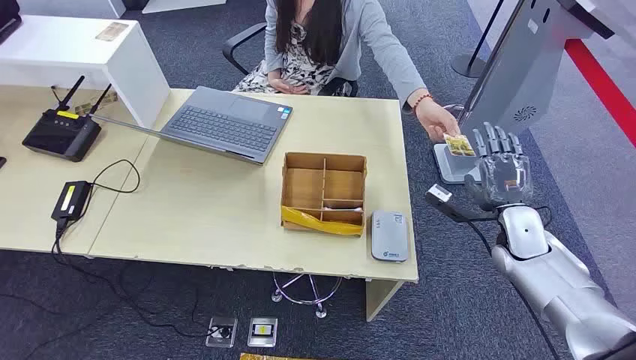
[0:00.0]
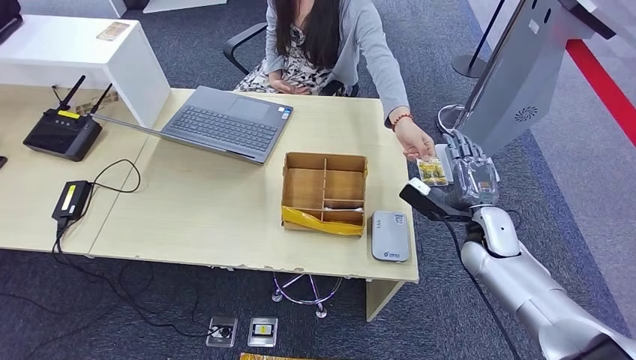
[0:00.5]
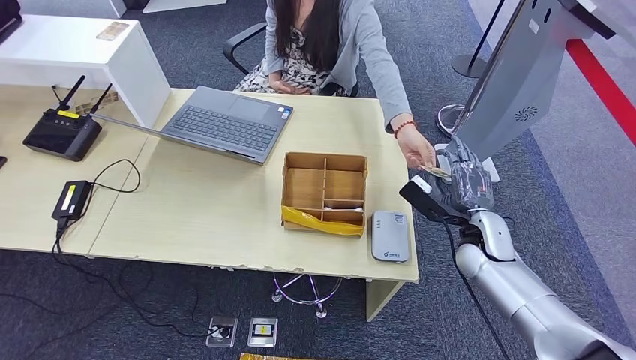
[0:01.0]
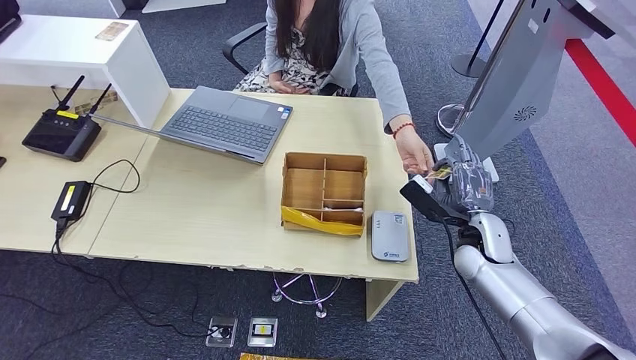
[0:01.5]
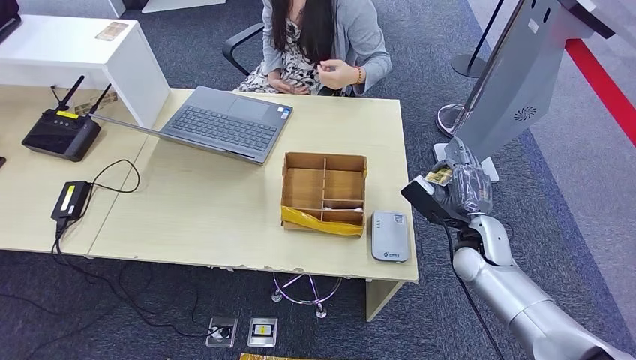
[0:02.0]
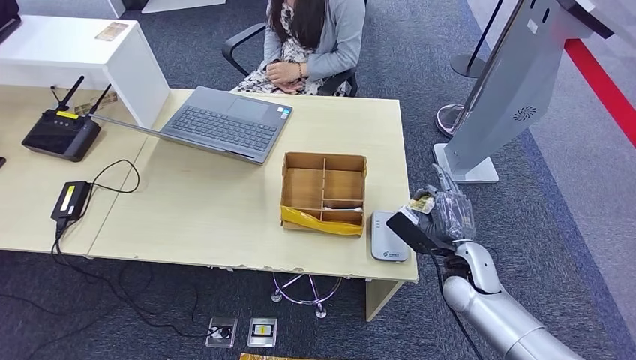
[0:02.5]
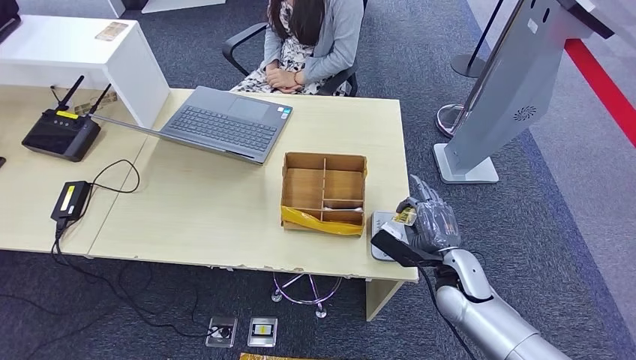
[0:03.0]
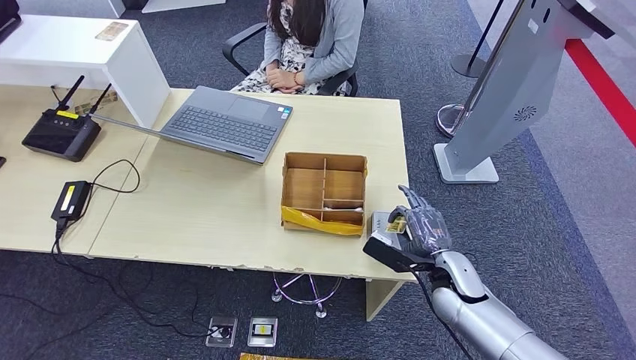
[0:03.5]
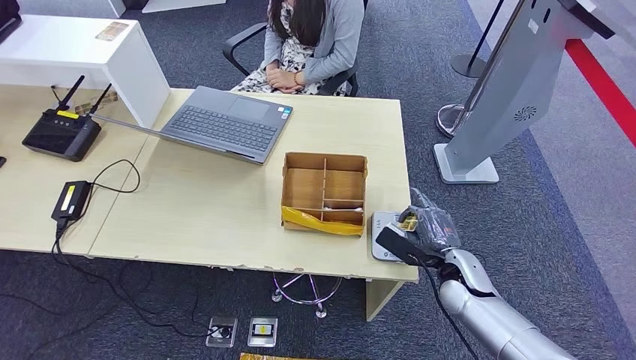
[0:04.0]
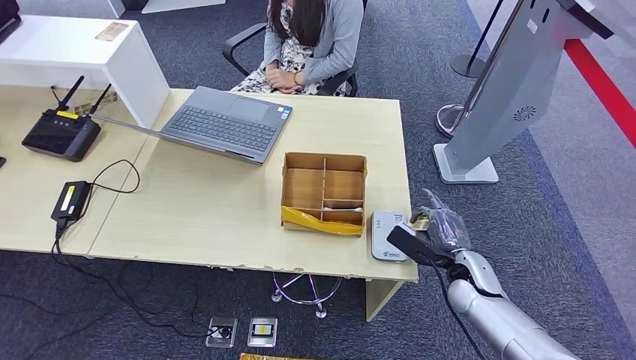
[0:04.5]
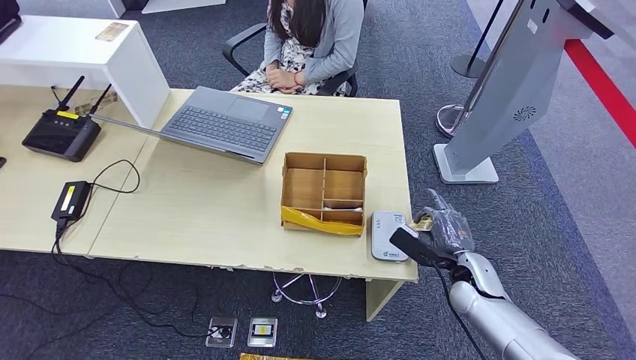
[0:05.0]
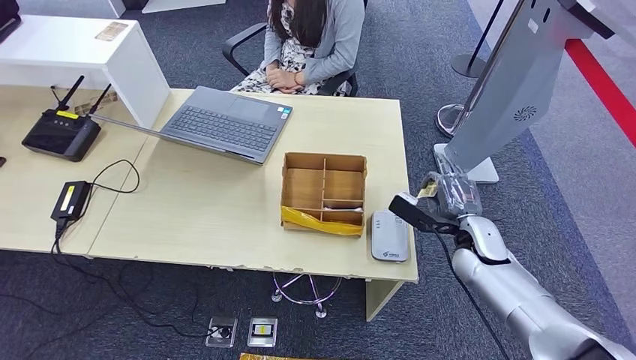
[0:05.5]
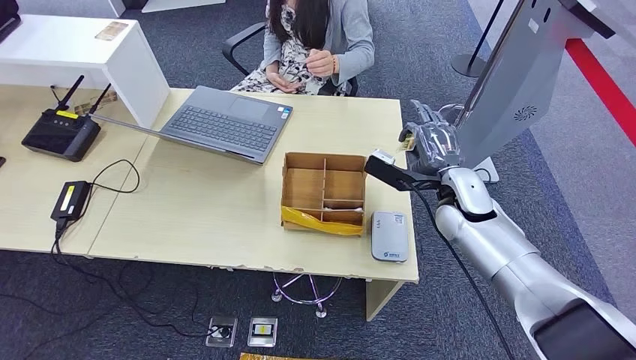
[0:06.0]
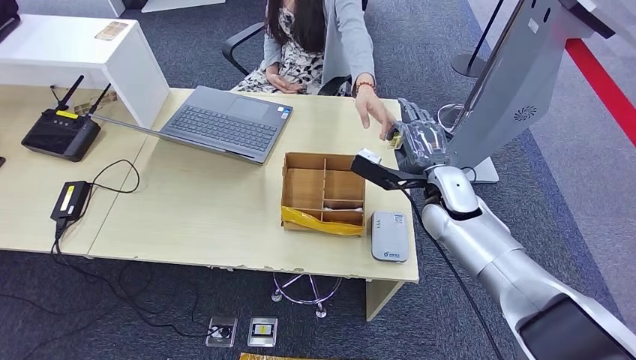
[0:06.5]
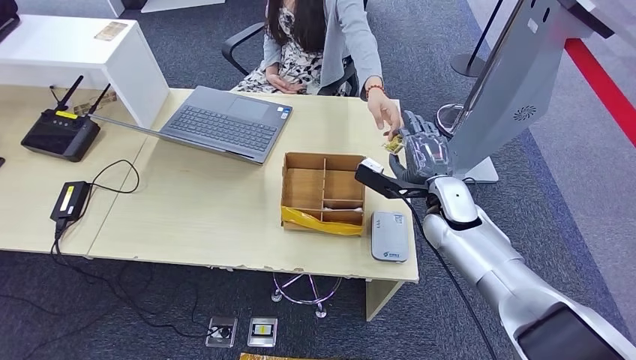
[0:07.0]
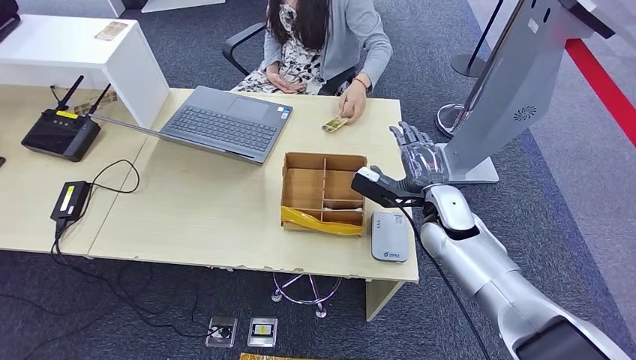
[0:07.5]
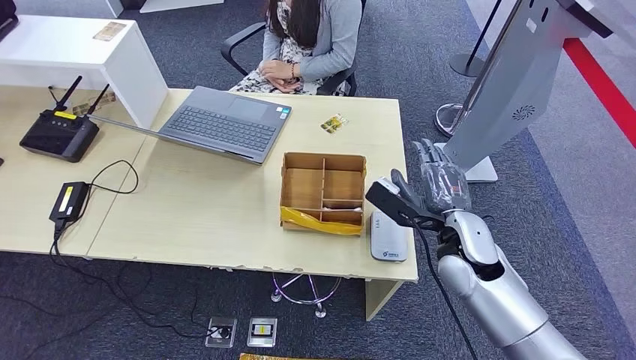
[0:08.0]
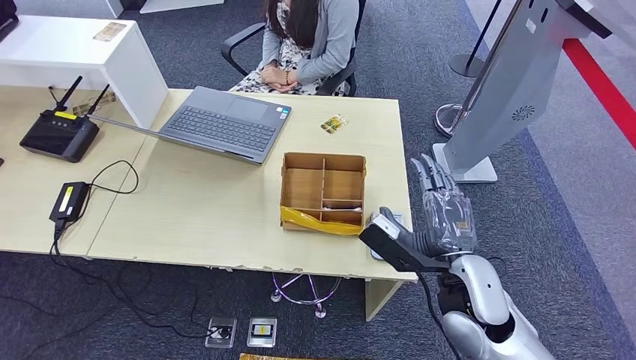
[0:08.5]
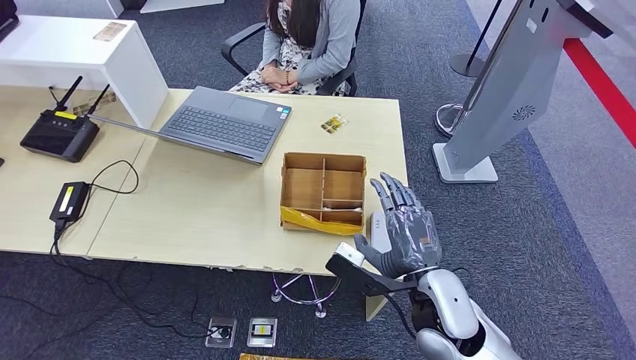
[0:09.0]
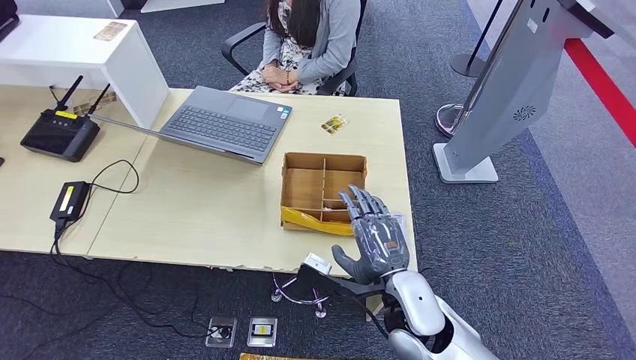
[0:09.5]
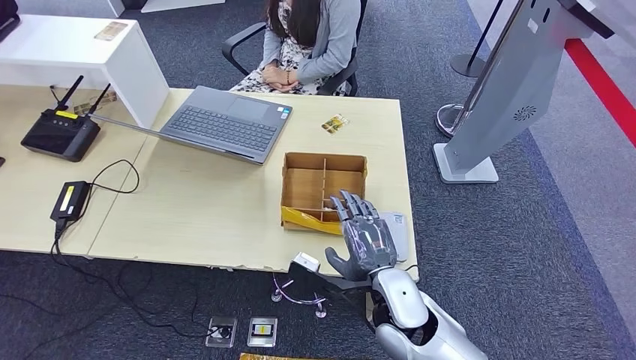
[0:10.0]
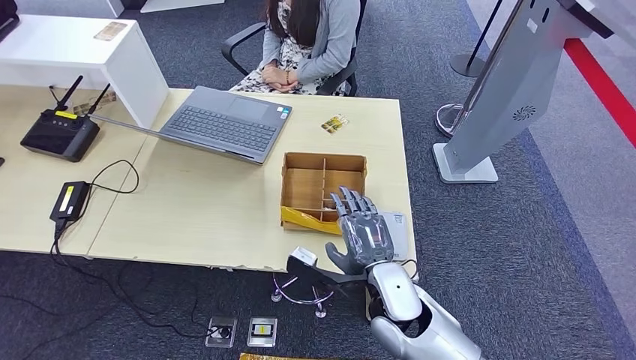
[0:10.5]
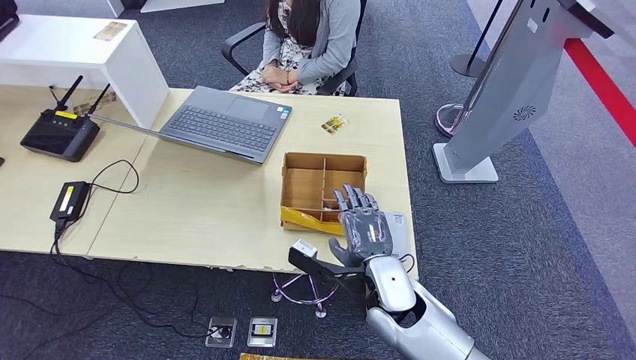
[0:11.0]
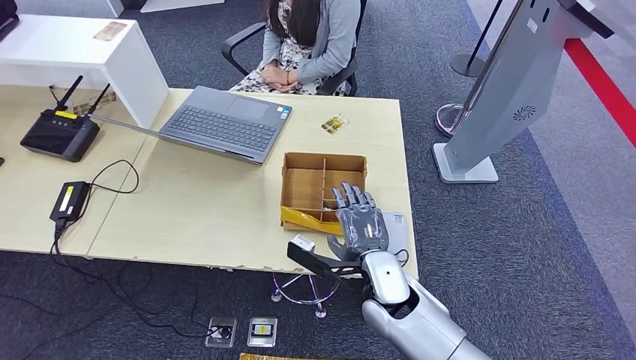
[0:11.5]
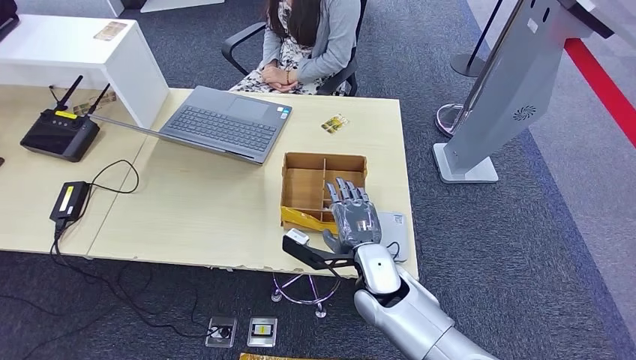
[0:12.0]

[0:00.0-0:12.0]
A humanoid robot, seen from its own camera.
Step, 0:00.0 to 0:02.5: Take the ID card from the person's hand.
Step, 0:03.0 to 0:06.0: Place the ID card on the card reader.
Step, 0:06.5 to 0:10.5: Hand the ID card to the person.
0:02.0 to 0:04.0: The right hand goes approximately 5 cm downward.
0:04.0 to 0:06.0: The right hand travels upward and forward by some 15 cm.
0:06.0 to 0:08.0: The right hand heads backward, covering roughly 10 cm.
0:08.0 to 0:10.0: The right hand is displaced to the left and backward by roughly 15 cm.
0:10.0 to 0:12.0: The right hand is displaced forward by some 5 cm.

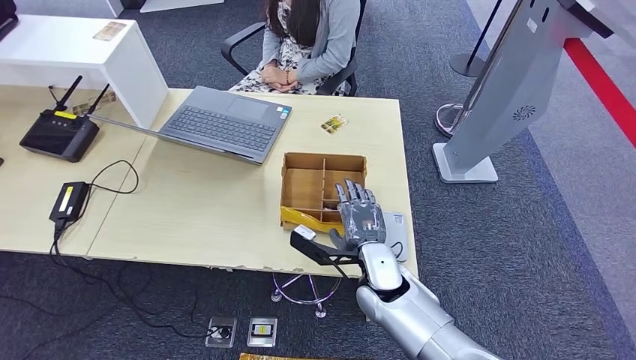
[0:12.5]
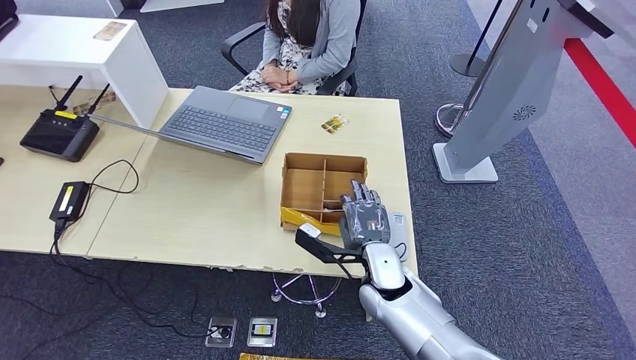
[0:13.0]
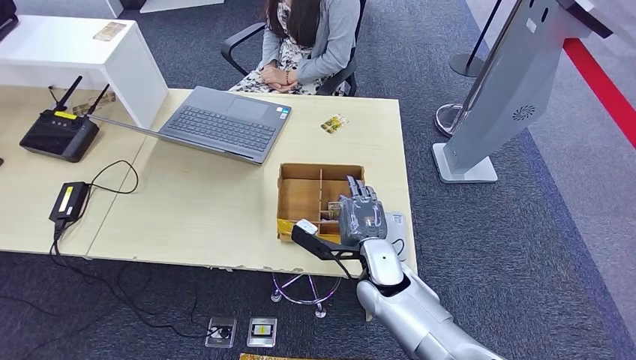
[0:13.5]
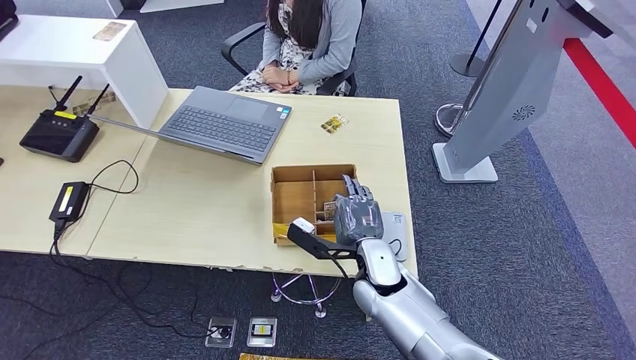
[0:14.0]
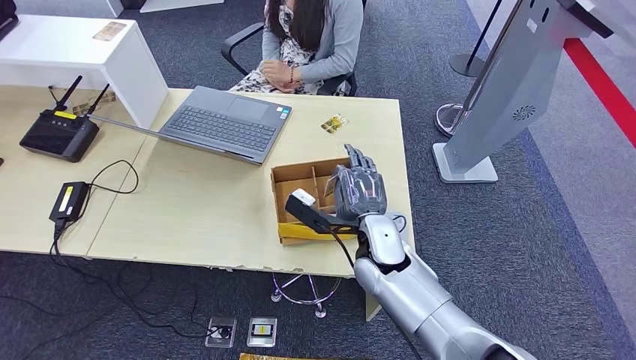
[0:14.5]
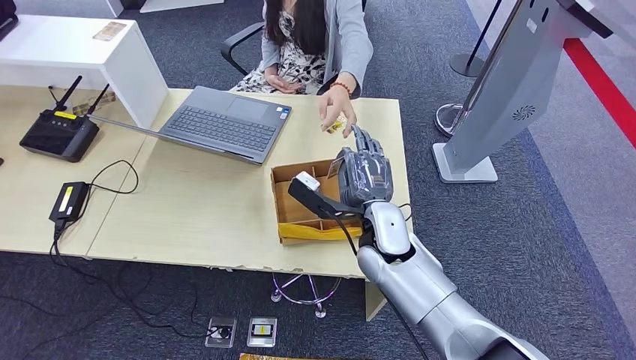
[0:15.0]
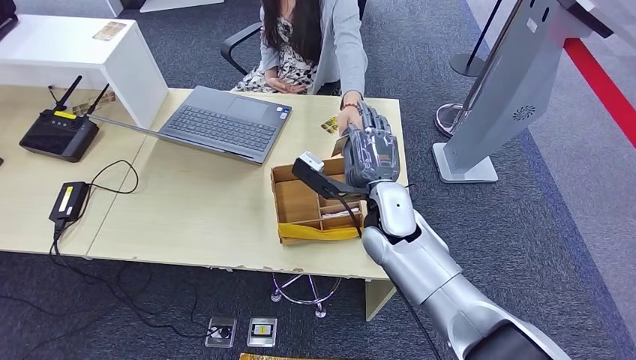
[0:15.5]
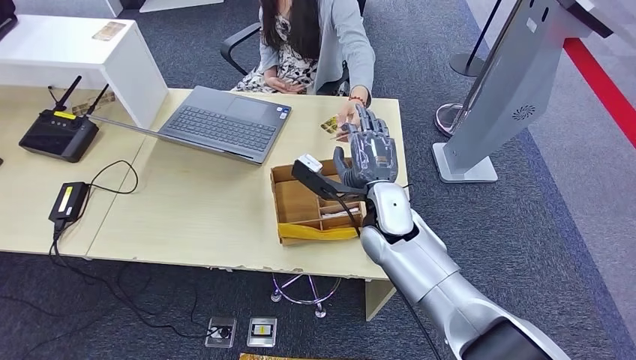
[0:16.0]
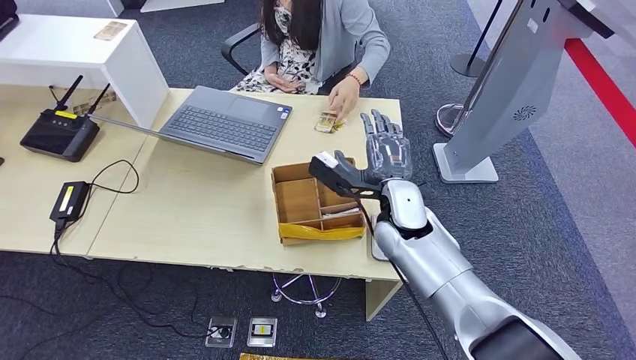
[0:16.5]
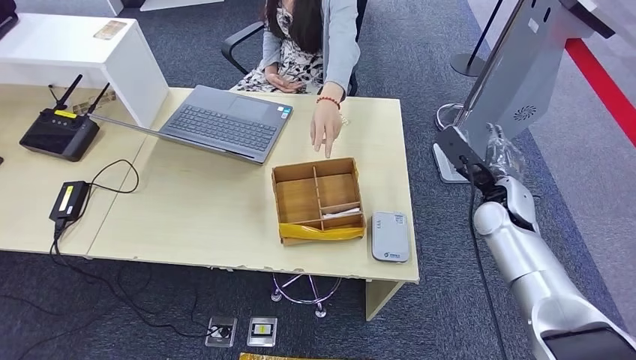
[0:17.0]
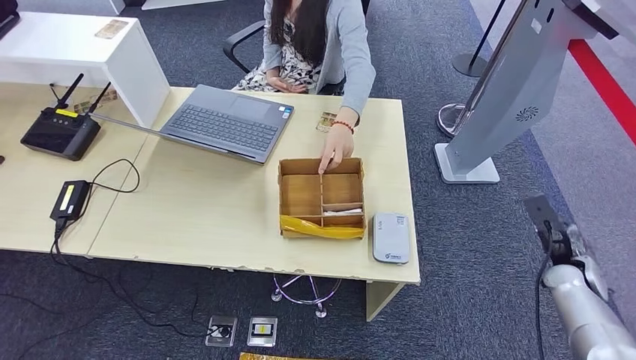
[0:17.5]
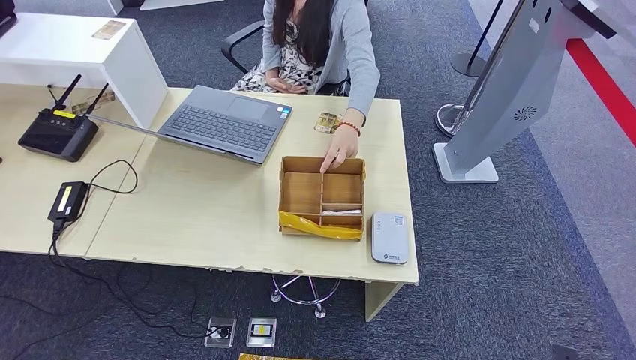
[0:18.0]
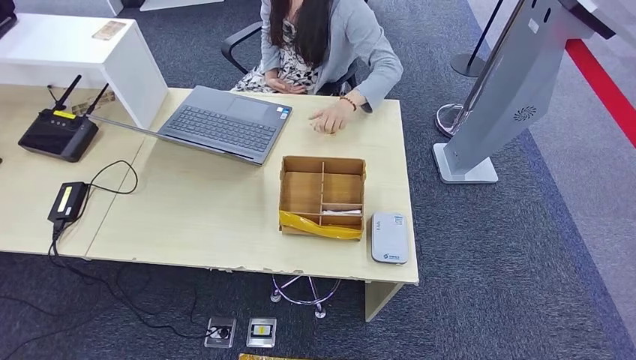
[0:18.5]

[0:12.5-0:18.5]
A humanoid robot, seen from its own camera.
Step, 0:12.5 to 0:15.0: Pick up the room key from the key card box.
Step, 0:15.5 to 0:18.5: Hand the room key to the person.
0:12.5 to 0:14.5: The right hand ends up about 5 cm from where it was.
0:14.5 to 0:16.5: The right hand ends up approximately 5 cm from where it was.
0:16.5 to 0:18.5: The right hand shifts roughly 50 cm backward, downward and to the right.

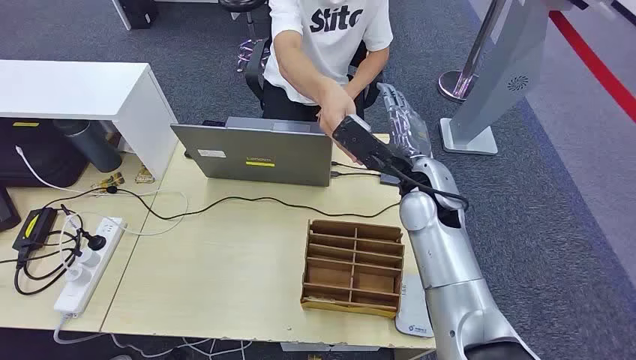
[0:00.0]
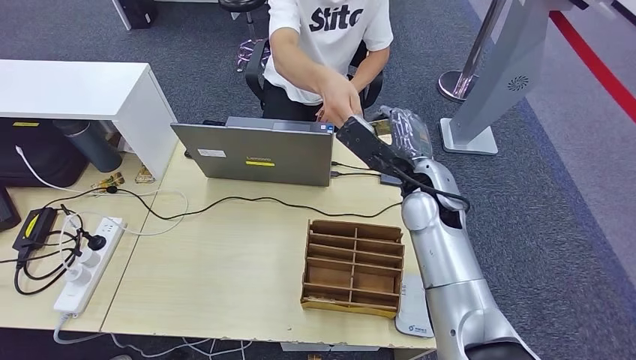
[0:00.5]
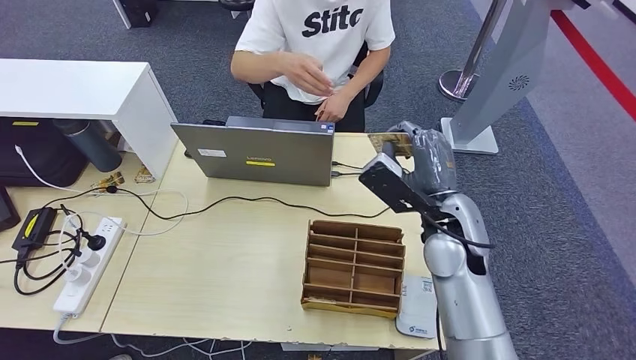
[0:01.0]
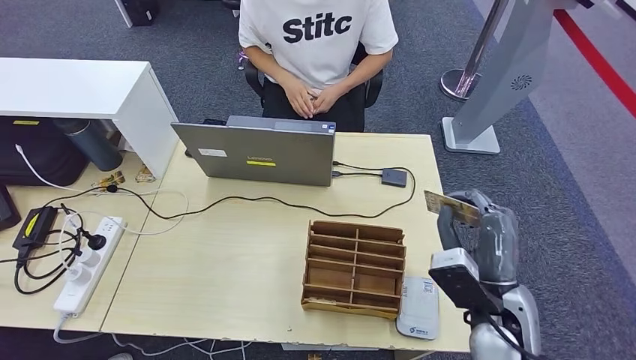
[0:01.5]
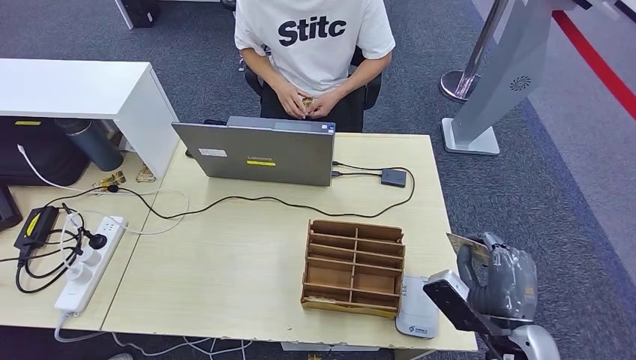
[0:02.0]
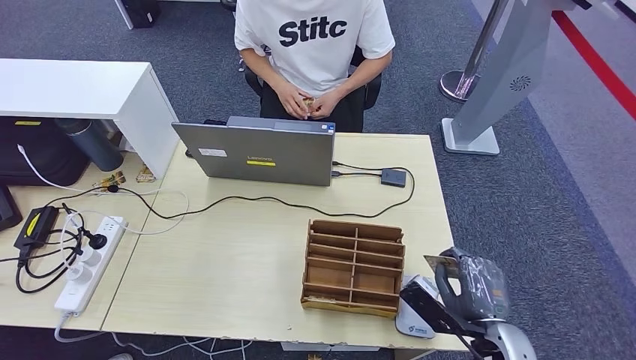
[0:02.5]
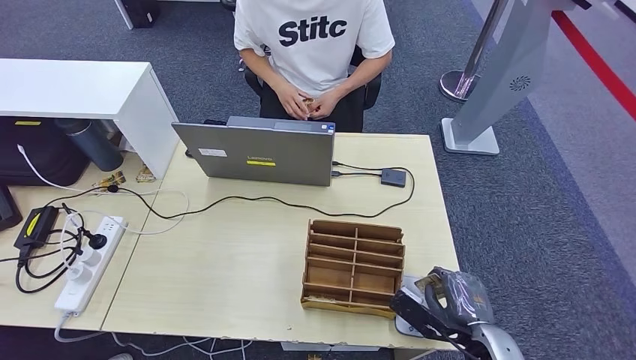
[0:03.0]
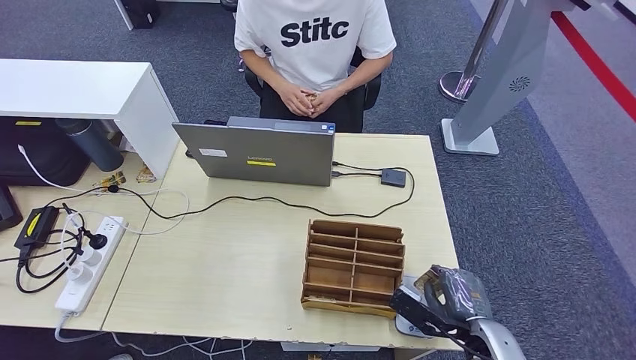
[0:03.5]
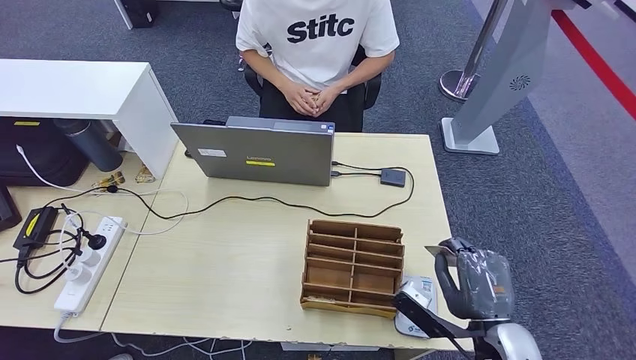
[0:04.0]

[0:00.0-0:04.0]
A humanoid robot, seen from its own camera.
Step, 0:00.0 to 0:01.0: Take the ID card from the person's hand.
Step, 0:01.5 to 0:03.5: Place the ID card on the card reader.
